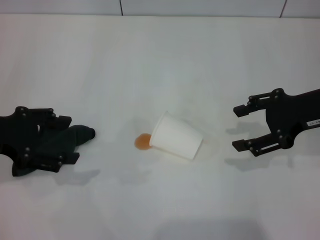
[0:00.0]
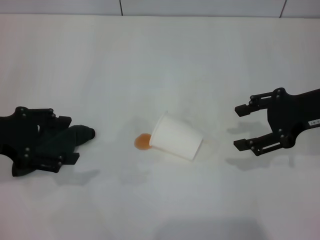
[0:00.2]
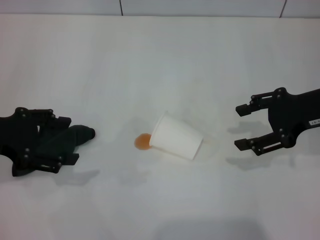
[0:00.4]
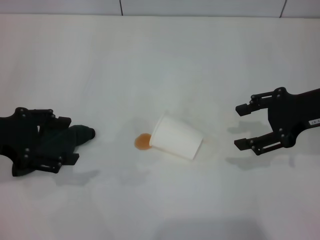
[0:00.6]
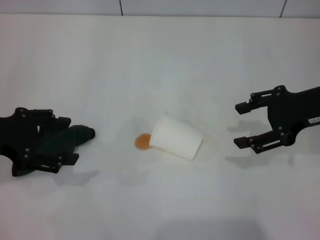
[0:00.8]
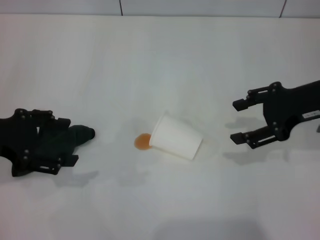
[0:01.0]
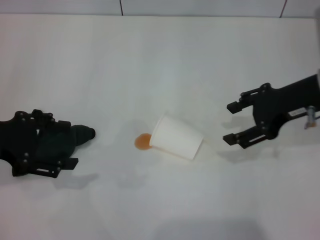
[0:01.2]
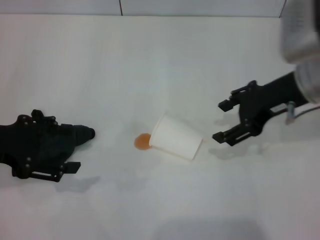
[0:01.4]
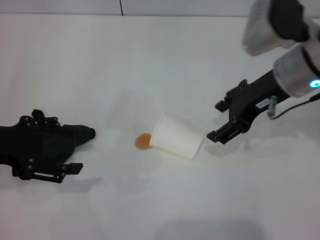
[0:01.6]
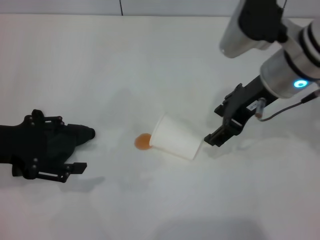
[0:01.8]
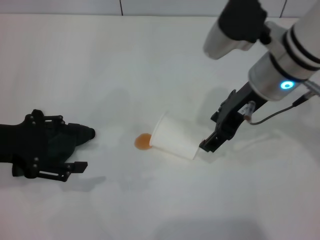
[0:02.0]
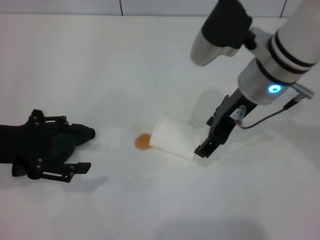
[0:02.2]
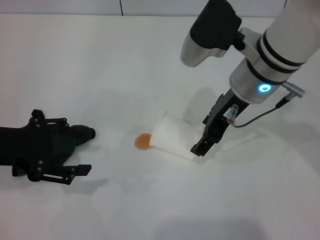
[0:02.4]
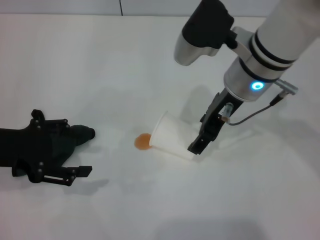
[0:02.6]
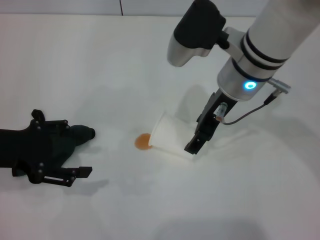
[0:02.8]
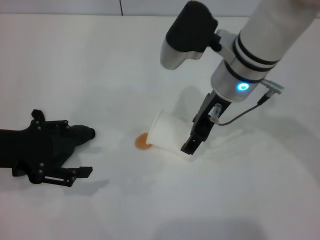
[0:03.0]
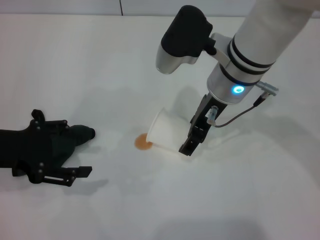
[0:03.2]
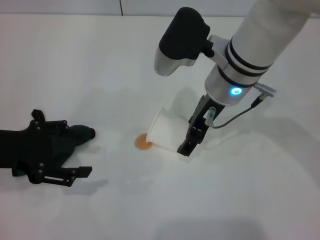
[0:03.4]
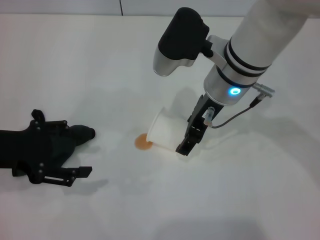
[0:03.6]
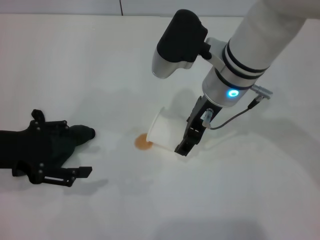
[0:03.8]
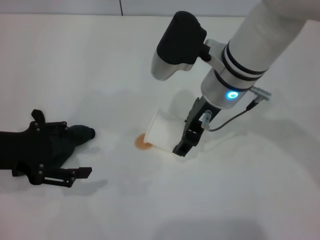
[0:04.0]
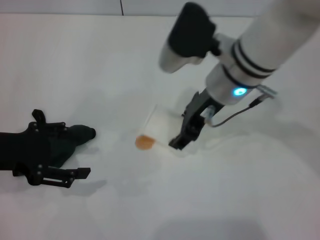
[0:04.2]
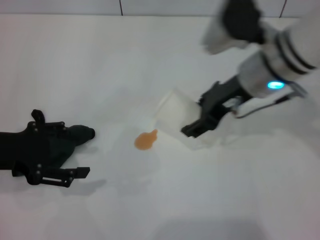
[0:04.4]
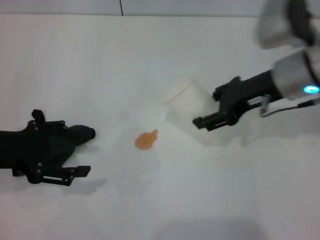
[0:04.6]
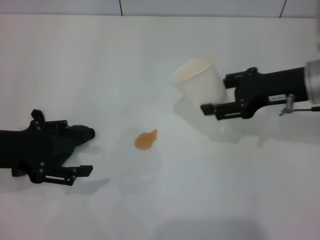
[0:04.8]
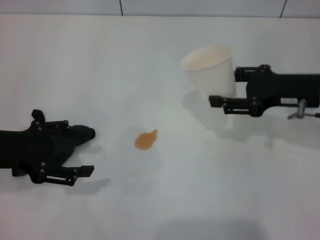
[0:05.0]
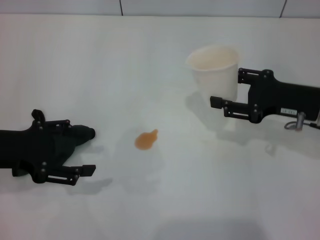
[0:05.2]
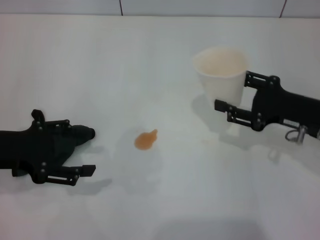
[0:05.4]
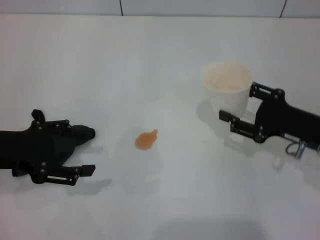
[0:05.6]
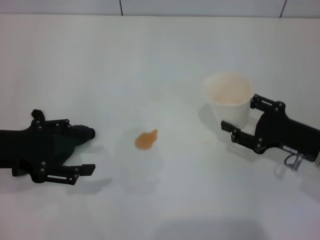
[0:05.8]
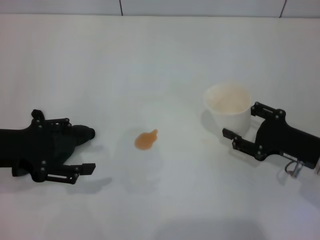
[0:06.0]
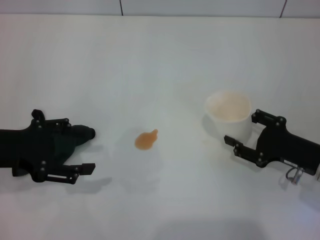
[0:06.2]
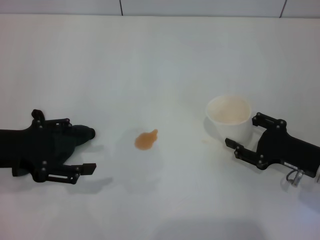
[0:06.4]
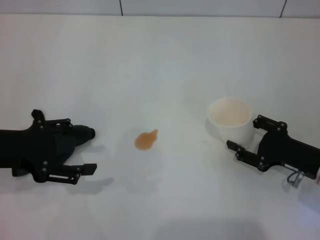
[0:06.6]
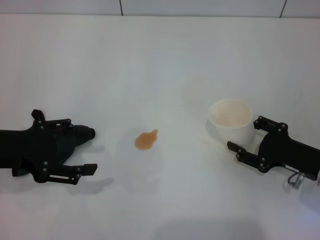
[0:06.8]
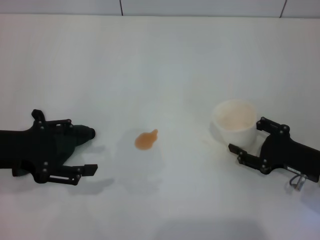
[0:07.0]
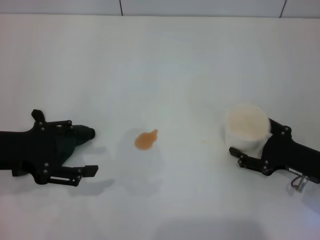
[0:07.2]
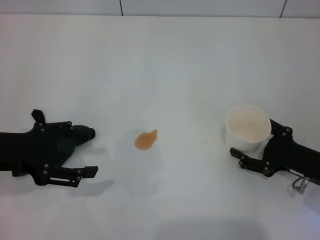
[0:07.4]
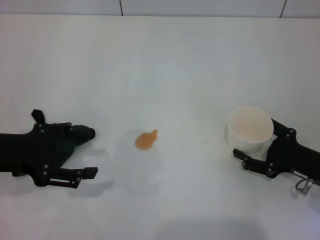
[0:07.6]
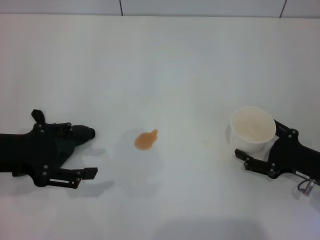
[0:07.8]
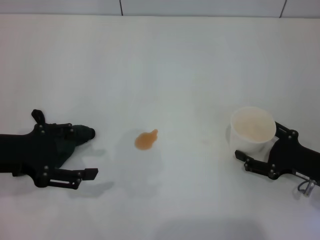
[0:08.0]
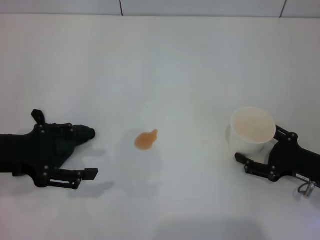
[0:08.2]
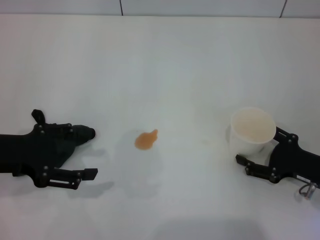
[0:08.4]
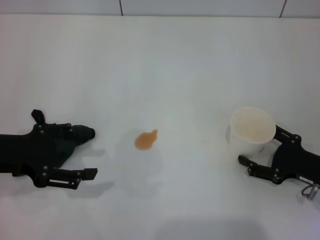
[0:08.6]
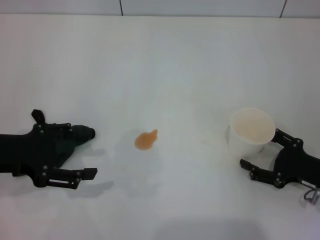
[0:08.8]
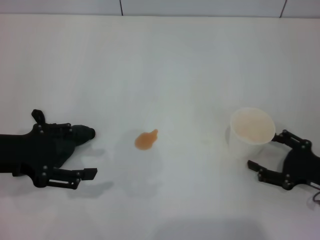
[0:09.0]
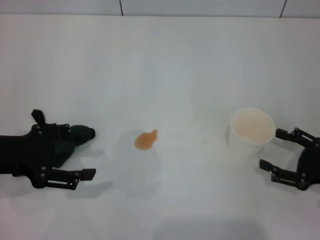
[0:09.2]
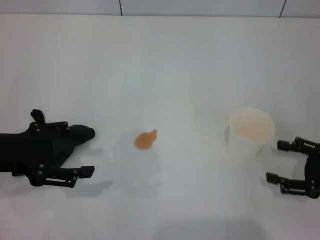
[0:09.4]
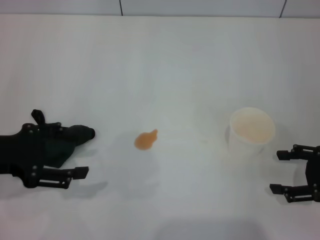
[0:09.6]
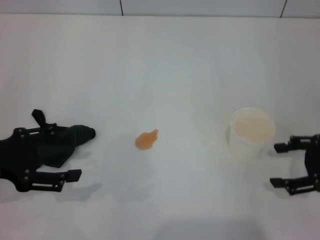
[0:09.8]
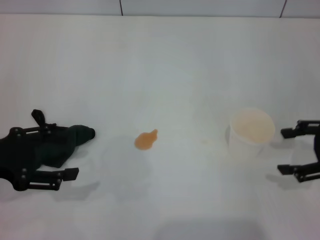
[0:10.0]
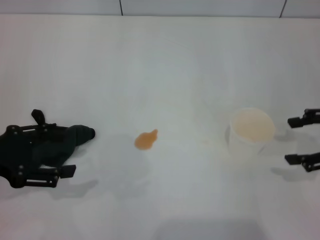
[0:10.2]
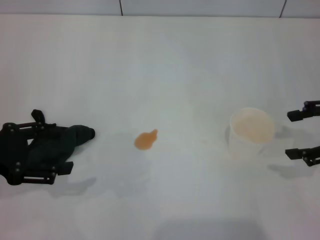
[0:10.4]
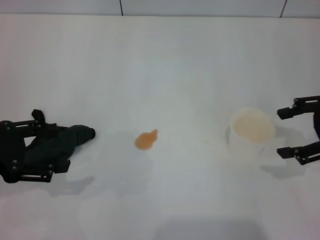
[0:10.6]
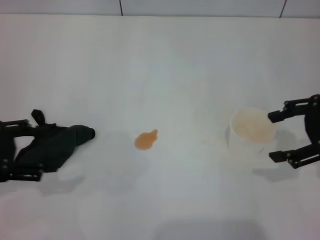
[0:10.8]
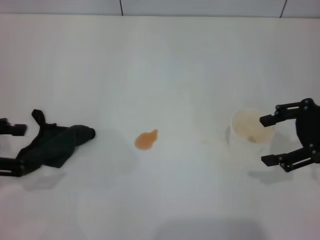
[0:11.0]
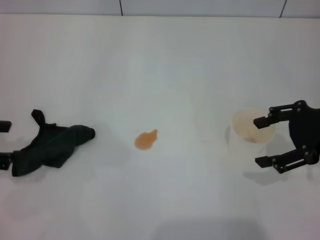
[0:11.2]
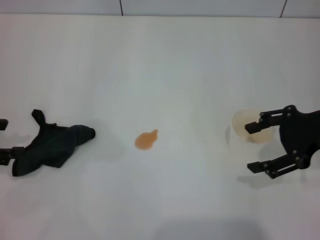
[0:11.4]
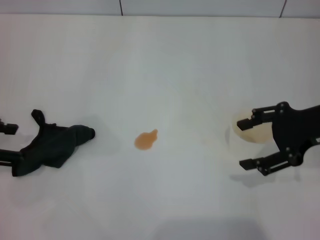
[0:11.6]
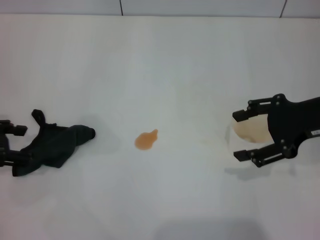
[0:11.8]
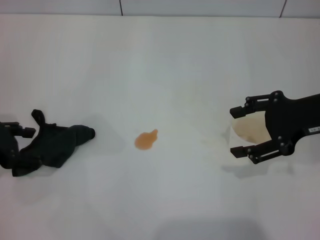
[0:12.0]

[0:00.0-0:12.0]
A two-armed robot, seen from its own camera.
Step, 0:00.0 to 0:03.8: Grasp the paper cup with the right gripper.
Step, 0:04.0 to 0:09.2: Stand the paper cup upright with the right gripper.
0:00.0 to 0:01.6: The right gripper shifts approximately 10 cm to the left.
0:01.6 to 0:03.0: The right gripper heads to the left, covering about 10 cm.
0:03.0 to 0:04.4: The right gripper heads to the right, covering approximately 5 cm, and closes up.
0:04.4 to 0:06.0: The right gripper goes approximately 20 cm downward, to the right and backward.
0:06.0 to 0:07.6: The right gripper opens up.
0:07.6 to 0:09.0: The grippers make only small movements.
0:09.0 to 0:10.4: The right gripper is displaced upward by some 15 cm.
0:10.4 to 0:12.0: The left gripper moves some 5 cm, while the right gripper heads to the left, covering approximately 5 cm.

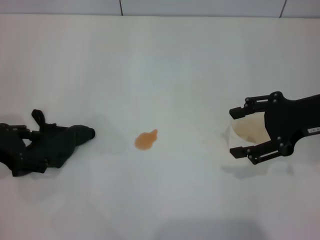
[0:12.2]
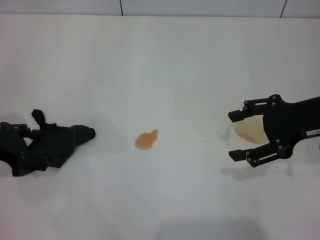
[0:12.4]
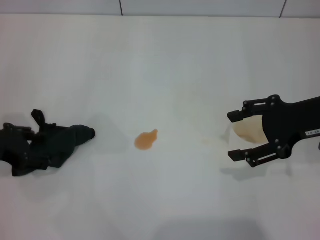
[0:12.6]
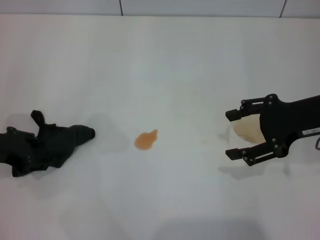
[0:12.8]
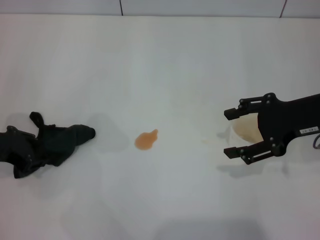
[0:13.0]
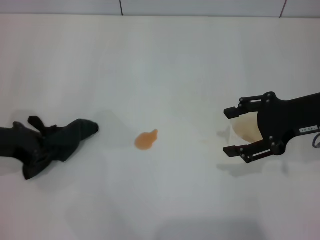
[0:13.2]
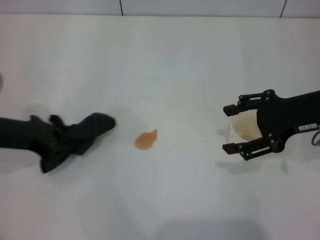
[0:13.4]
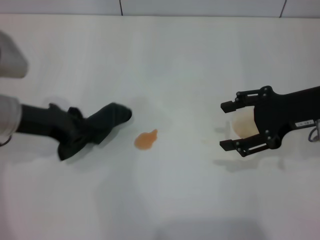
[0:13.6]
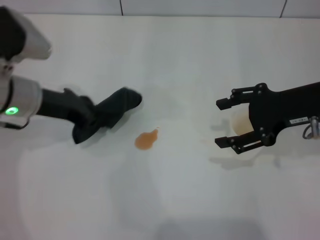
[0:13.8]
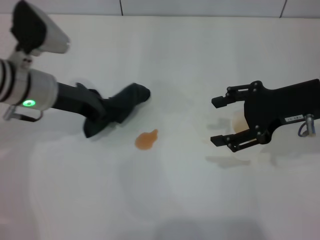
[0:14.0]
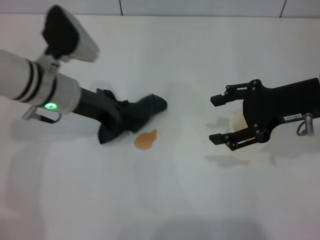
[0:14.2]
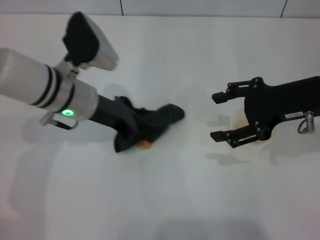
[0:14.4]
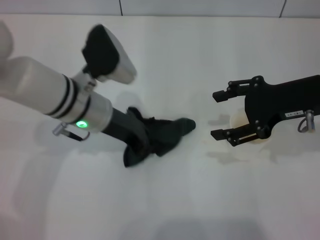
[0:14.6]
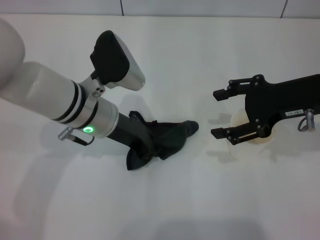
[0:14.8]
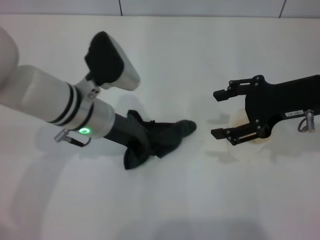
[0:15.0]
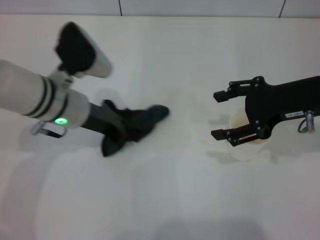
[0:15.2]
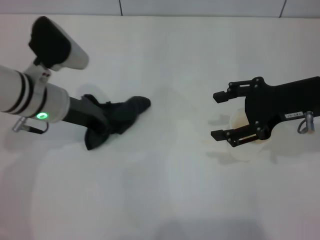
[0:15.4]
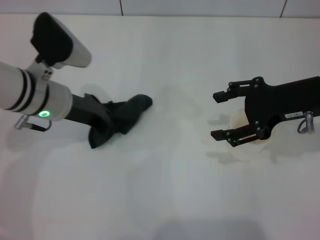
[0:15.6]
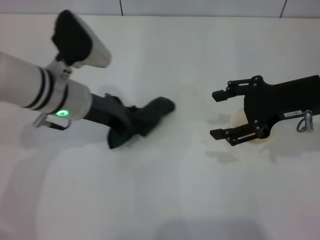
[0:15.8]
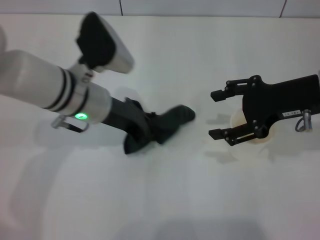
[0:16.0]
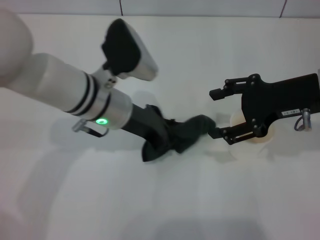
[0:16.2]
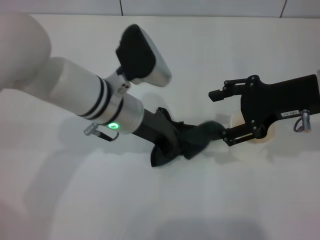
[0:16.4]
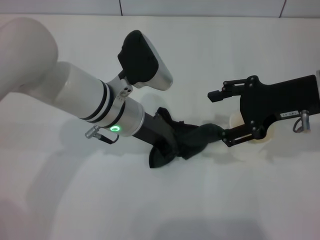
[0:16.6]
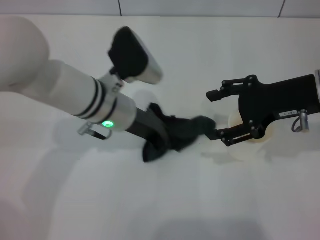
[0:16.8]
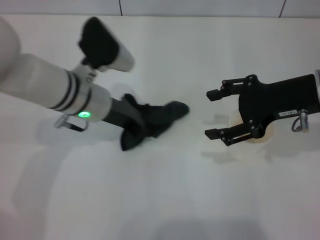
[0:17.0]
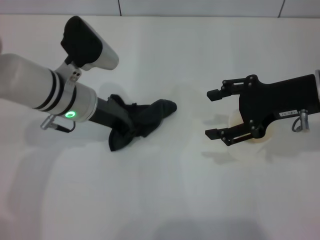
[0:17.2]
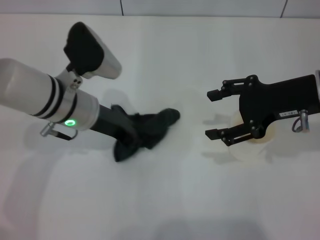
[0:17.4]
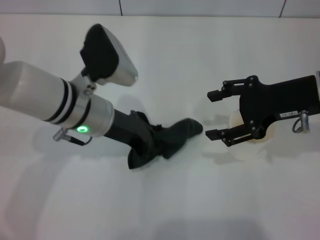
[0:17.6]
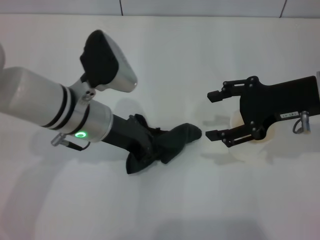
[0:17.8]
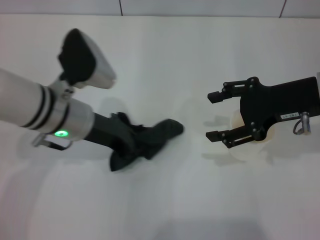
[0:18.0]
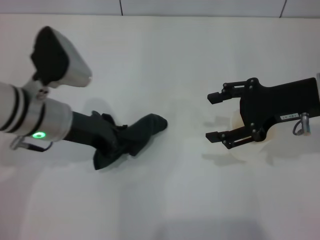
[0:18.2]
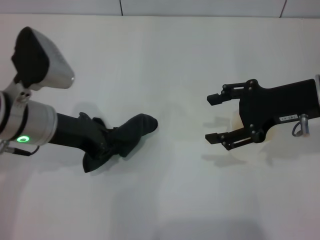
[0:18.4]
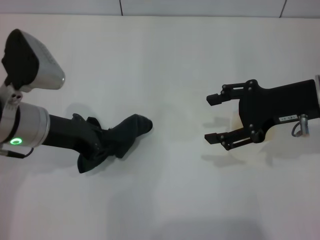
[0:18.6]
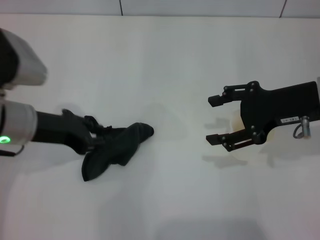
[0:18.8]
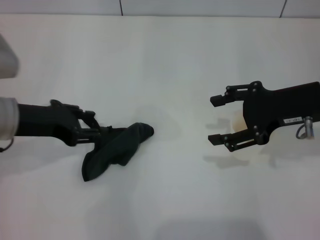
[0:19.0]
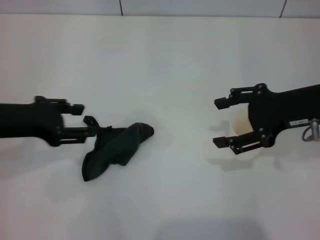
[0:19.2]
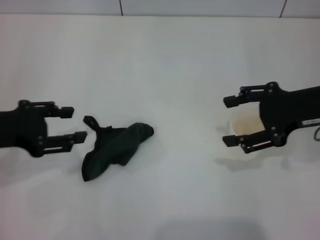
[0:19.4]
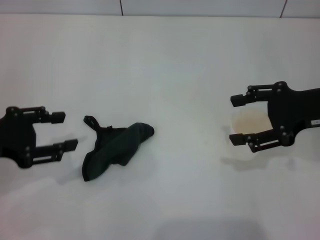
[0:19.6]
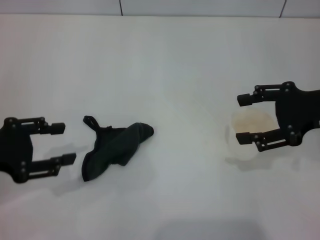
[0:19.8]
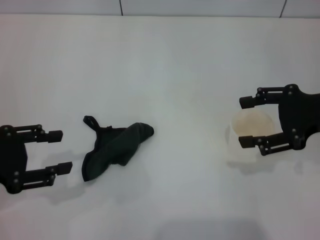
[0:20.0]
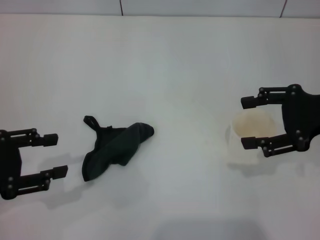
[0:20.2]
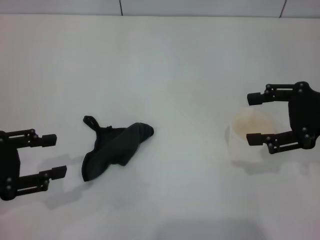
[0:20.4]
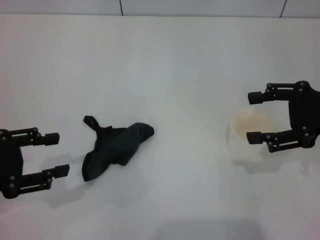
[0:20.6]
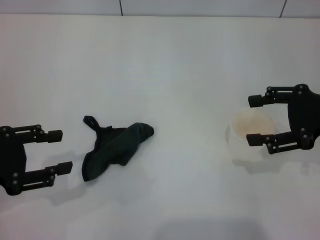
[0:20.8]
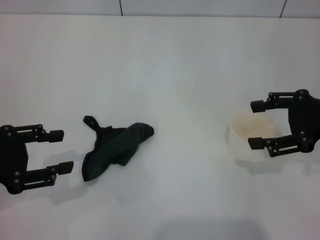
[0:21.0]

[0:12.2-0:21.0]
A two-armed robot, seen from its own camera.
Step, 0:13.0 to 0:18.0: Wipe the stains off the table with the left gripper.
Step, 0:18.2 to 0:19.2: Place the rag on the table with the left gripper.
0:12.2 to 0:13.6: The left gripper shifts approximately 5 cm to the right, and closes its fingers.
0:13.6 to 0:15.2: The left gripper shifts some 10 cm to the right.
0:15.2 to 0:16.6: The left gripper travels to the right by some 10 cm.
0:16.6 to 0:18.0: The left gripper is displaced to the left by some 5 cm.
0:18.0 to 0:19.6: The left gripper is displaced to the left and backward by approximately 15 cm, and opens up.
0:19.6 to 0:21.0: The grippers move only a little.

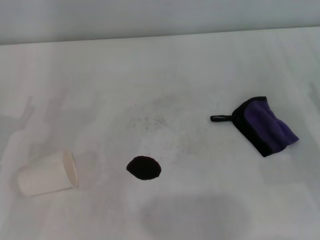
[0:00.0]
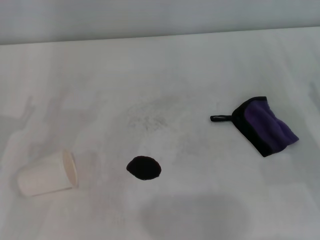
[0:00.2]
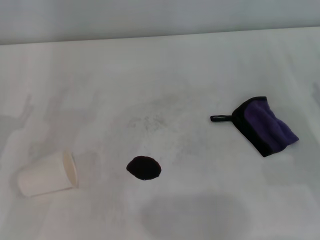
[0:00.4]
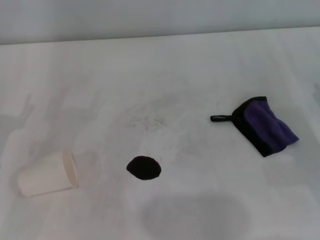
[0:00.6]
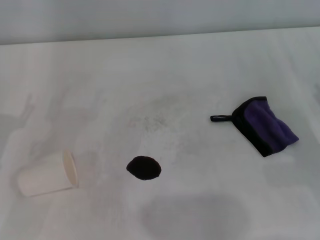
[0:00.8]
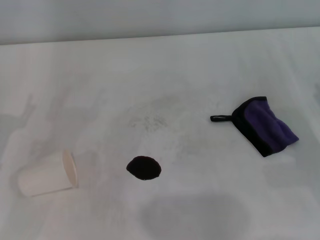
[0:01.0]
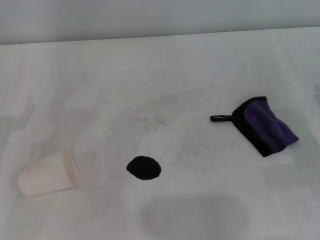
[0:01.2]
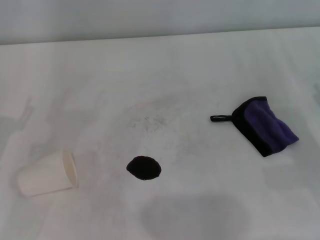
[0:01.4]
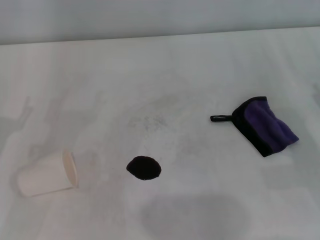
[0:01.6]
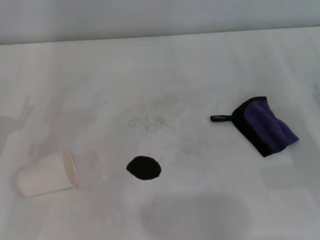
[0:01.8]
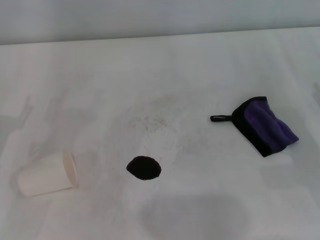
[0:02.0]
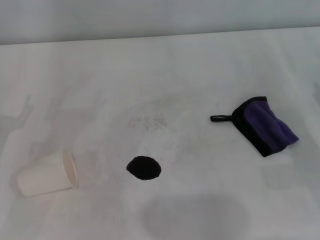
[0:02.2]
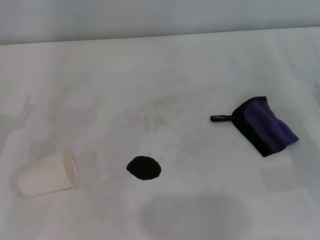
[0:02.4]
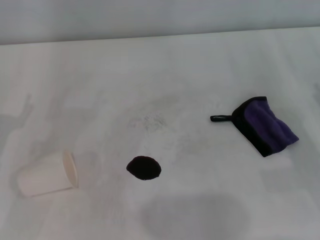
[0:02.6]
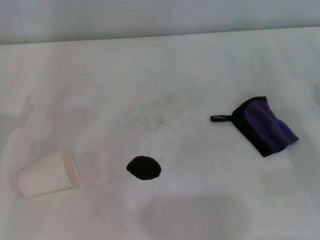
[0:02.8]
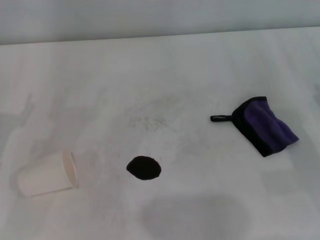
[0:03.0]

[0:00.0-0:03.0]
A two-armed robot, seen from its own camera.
0:00.0 to 0:01.6: The two grippers keep their place.
0:01.6 to 0:03.0: The two grippers keep their place.
